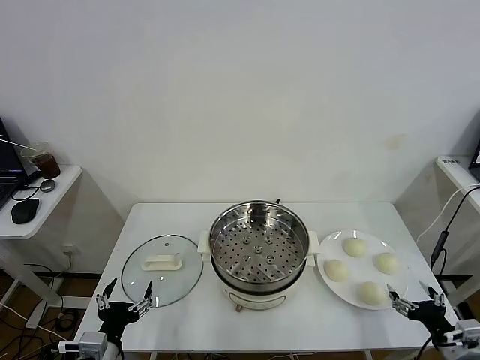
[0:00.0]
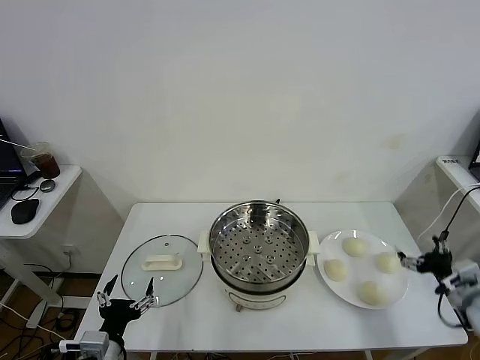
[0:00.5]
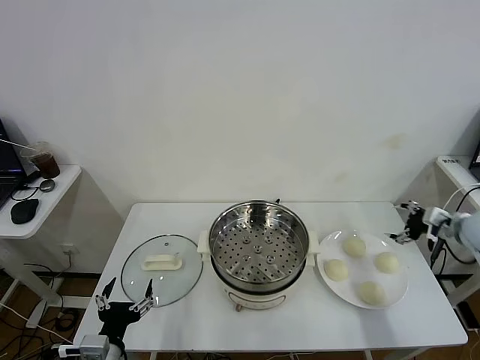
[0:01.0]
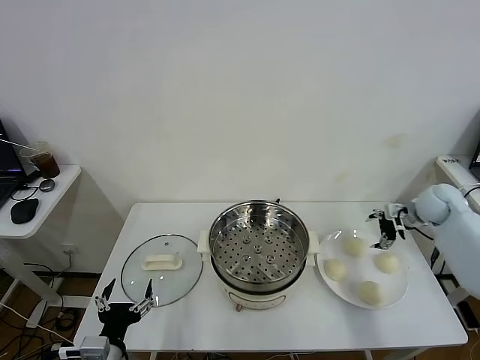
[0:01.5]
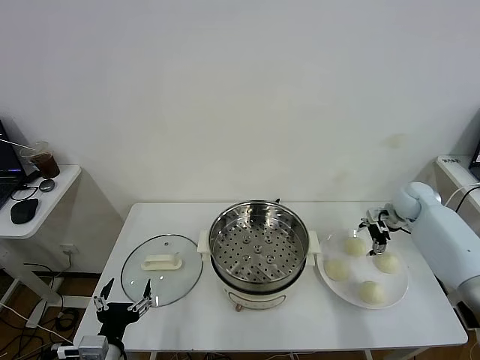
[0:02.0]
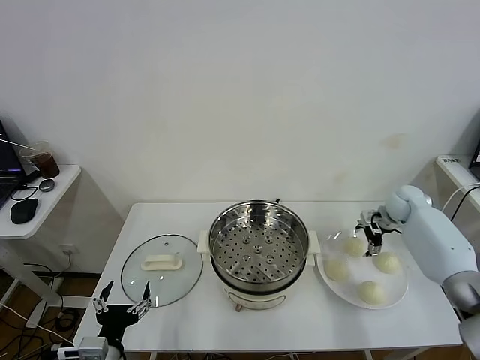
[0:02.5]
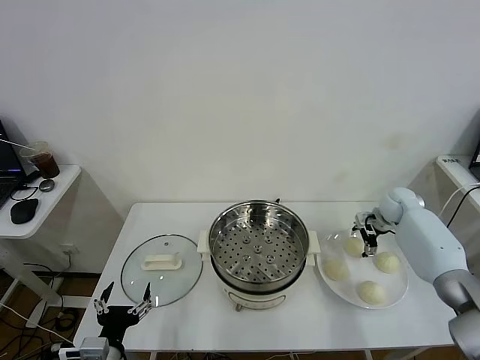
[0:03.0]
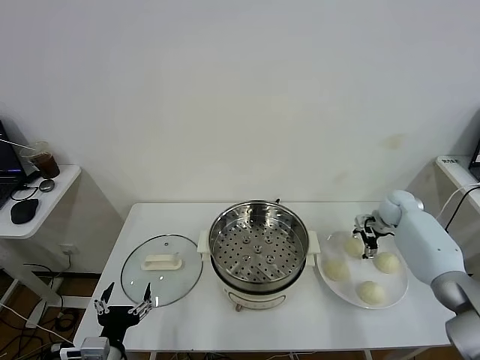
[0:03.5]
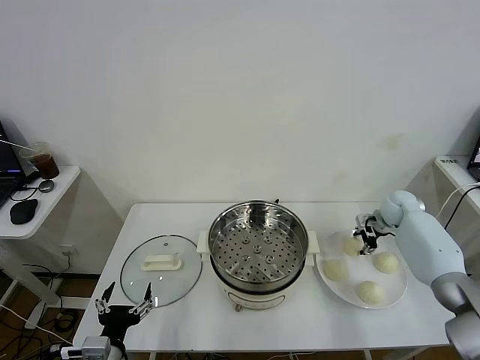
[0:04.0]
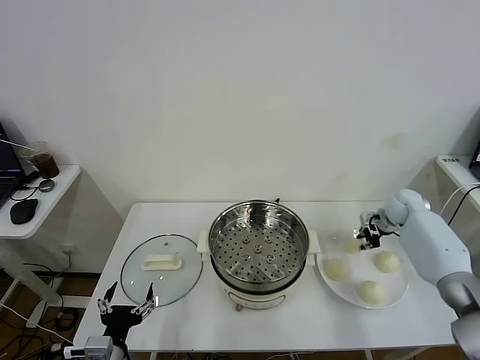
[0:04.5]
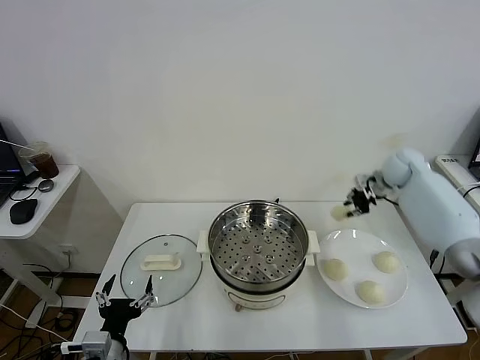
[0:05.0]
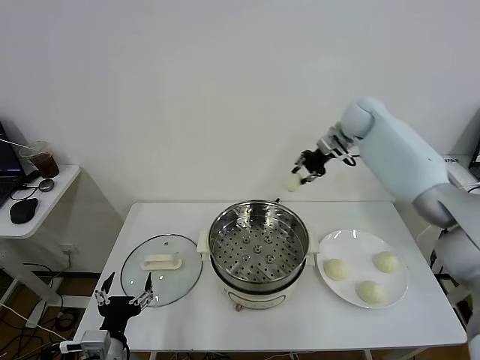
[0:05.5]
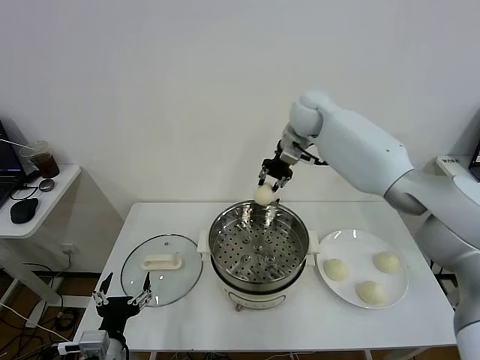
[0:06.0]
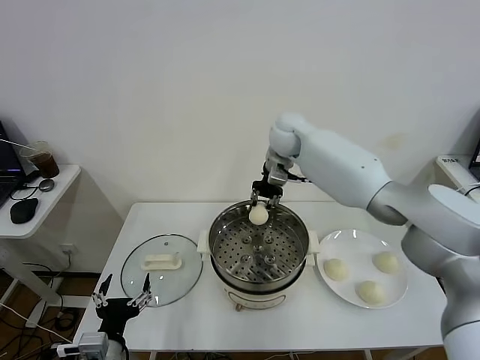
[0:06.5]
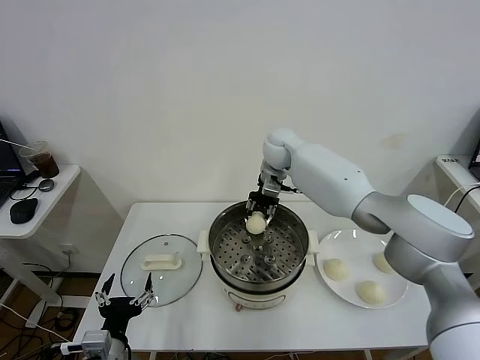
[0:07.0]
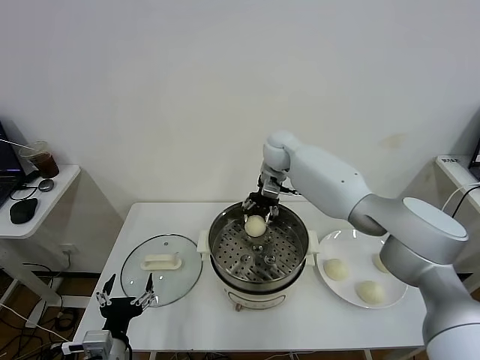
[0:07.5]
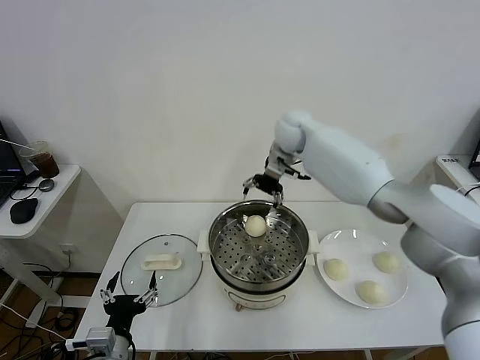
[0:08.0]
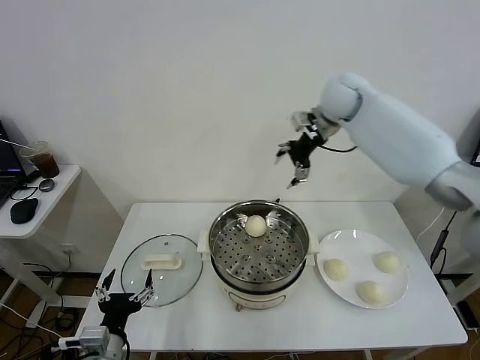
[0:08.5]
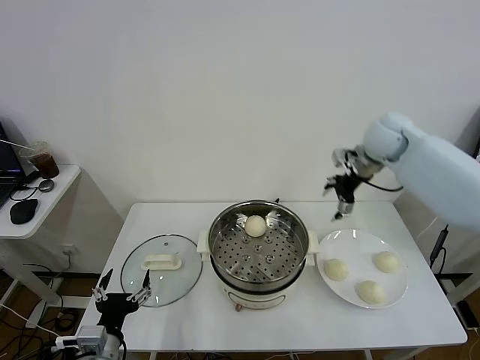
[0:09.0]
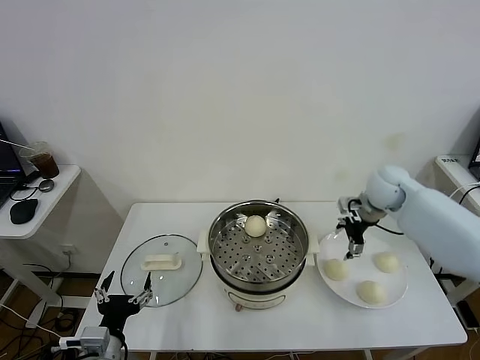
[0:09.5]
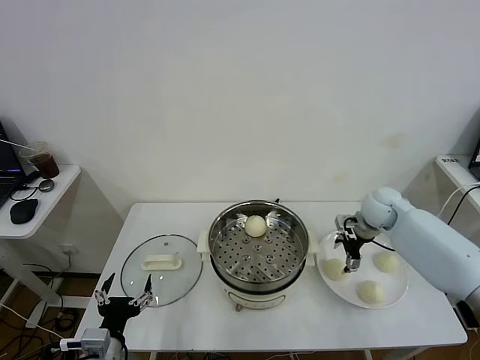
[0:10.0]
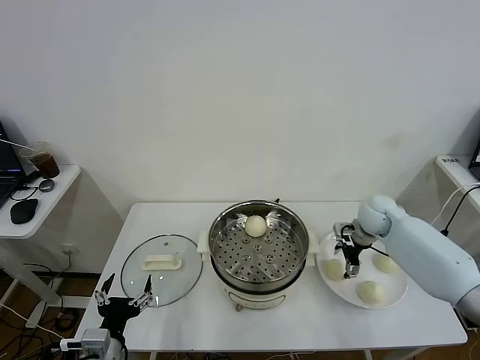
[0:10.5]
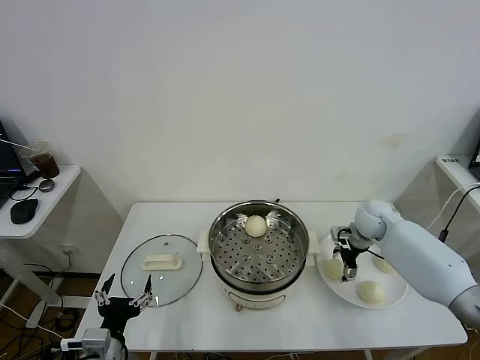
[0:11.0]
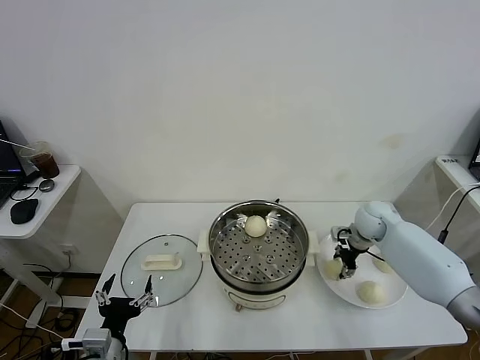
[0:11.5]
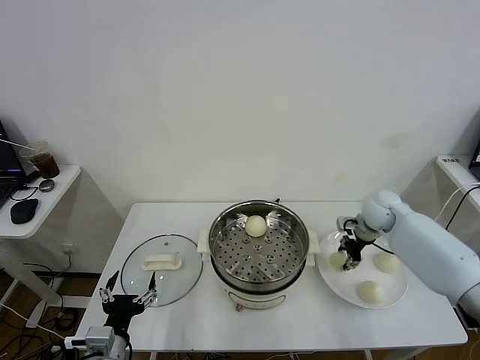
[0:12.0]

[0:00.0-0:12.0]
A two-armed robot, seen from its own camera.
Task of the whole recording: take steamed baozi put them in steamer.
Step, 0:00.0 to 0:04.0: Grasp the baozi in the plate with right gripper.
Step, 0:04.5 to 0:07.5: Place the baozi on the steamer with right gripper.
Step, 0:08.0 to 0:11.5: Grasp the baozi in the plate with right gripper.
0:02.0 to 0:04.0: The right gripper closes.
0:04.0 to 0:06.0: The right gripper shifts about 40 cm to the left and upward, and closes up.
0:06.0 to 0:08.0: The right gripper moves approximately 10 cm downward and comes back, and opens its fingers.
0:08.0 to 0:10.0: The right gripper shifts approximately 30 cm to the right, downward and backward.
0:10.0 to 0:12.0: The right gripper closes.

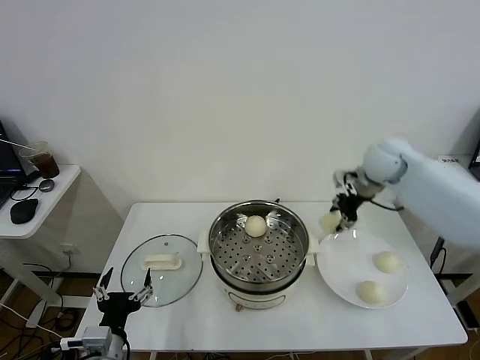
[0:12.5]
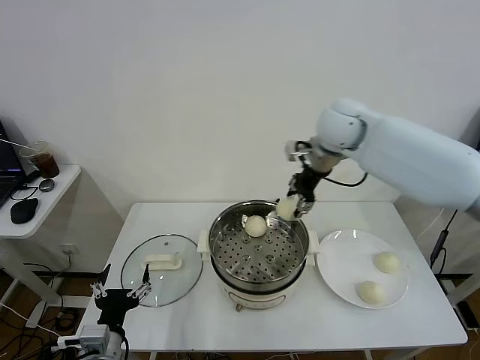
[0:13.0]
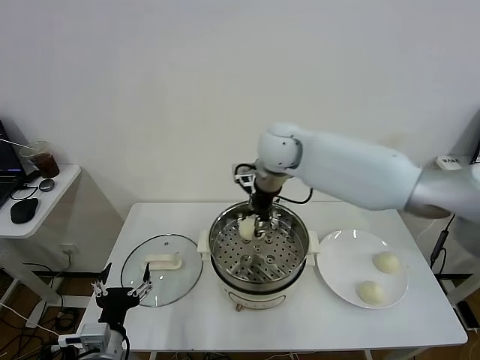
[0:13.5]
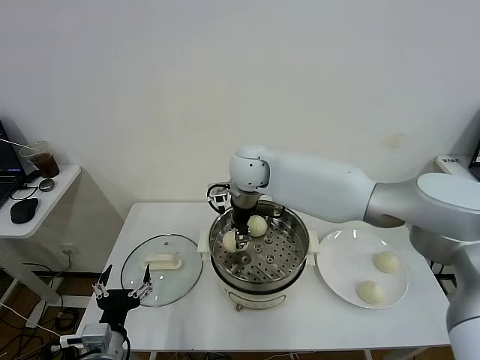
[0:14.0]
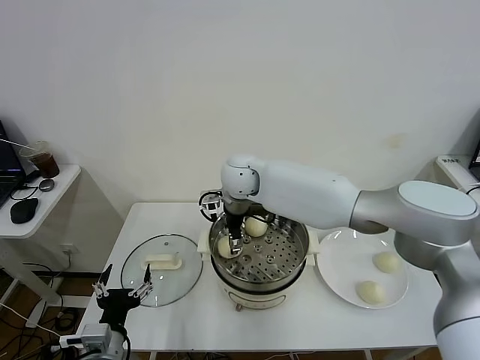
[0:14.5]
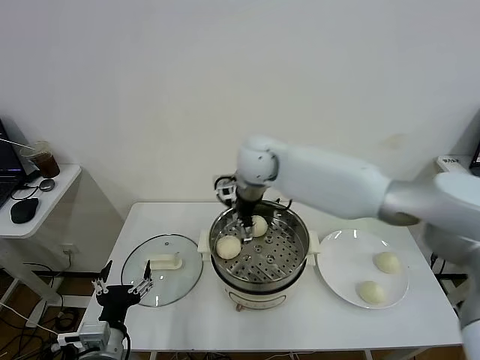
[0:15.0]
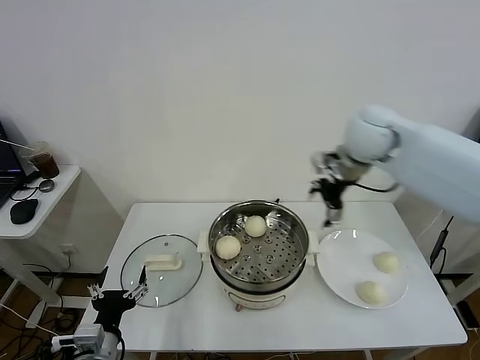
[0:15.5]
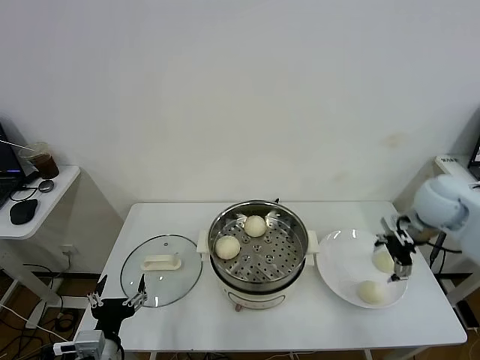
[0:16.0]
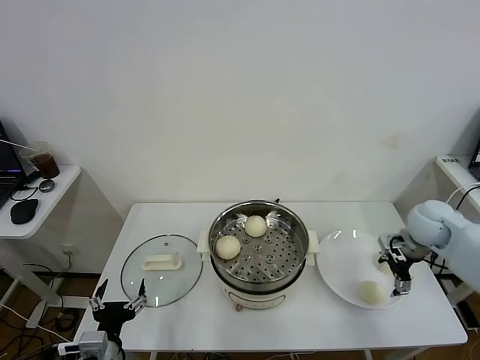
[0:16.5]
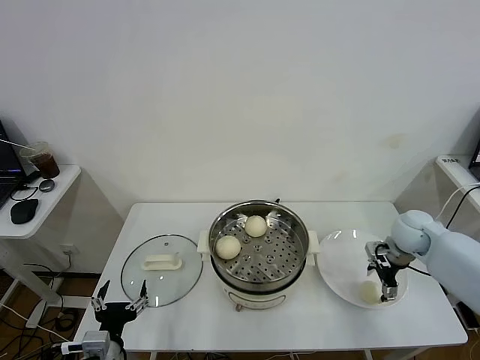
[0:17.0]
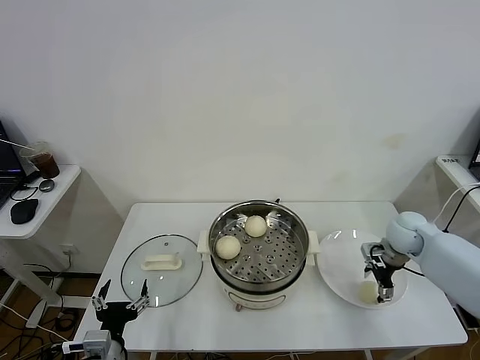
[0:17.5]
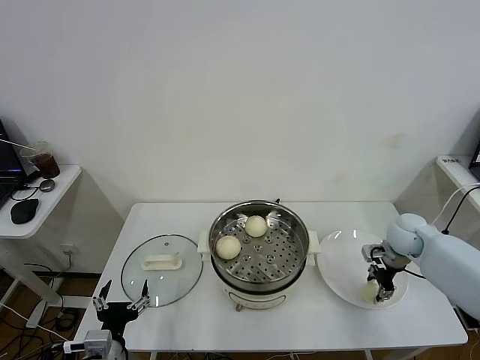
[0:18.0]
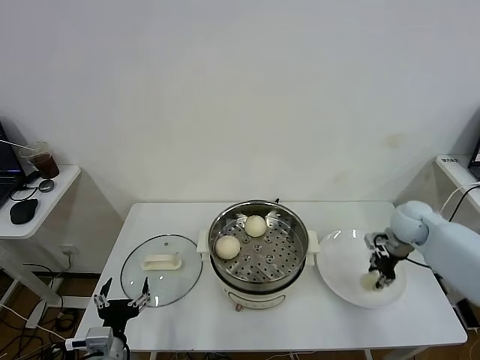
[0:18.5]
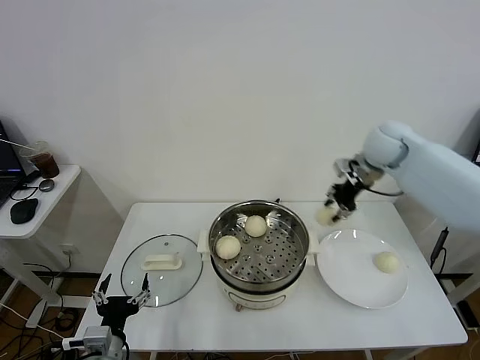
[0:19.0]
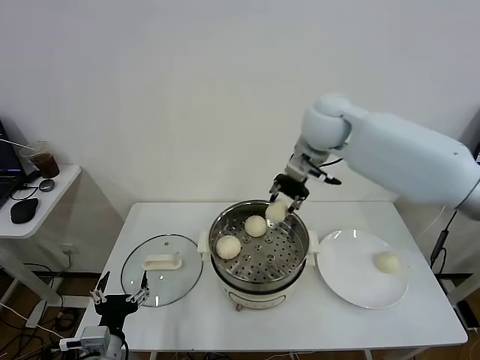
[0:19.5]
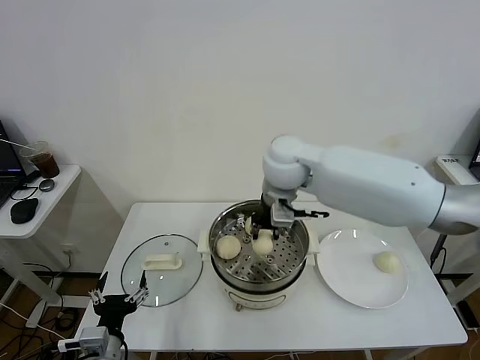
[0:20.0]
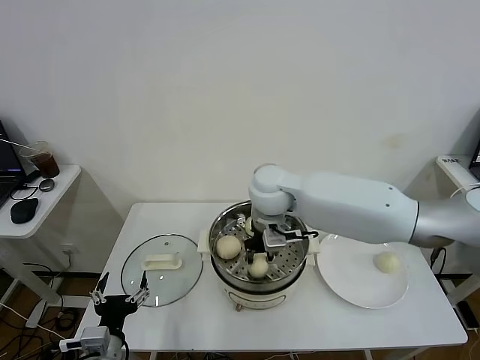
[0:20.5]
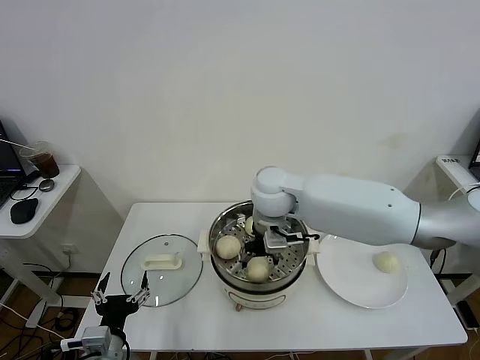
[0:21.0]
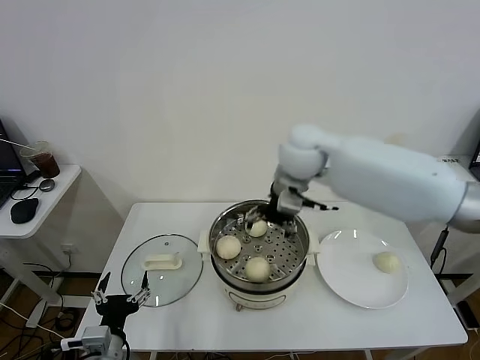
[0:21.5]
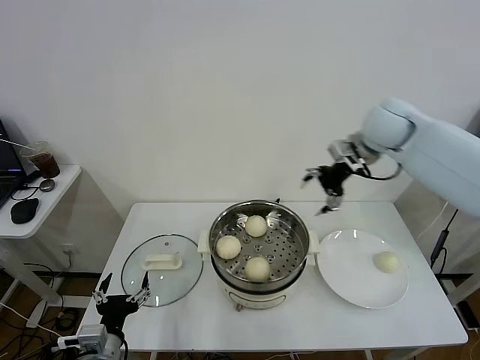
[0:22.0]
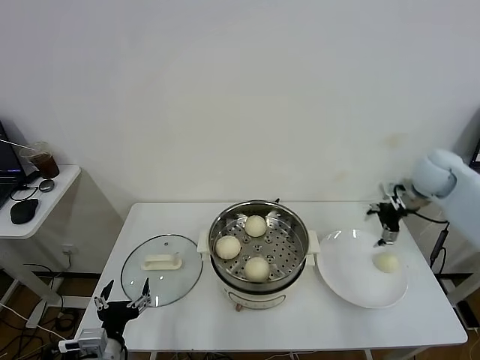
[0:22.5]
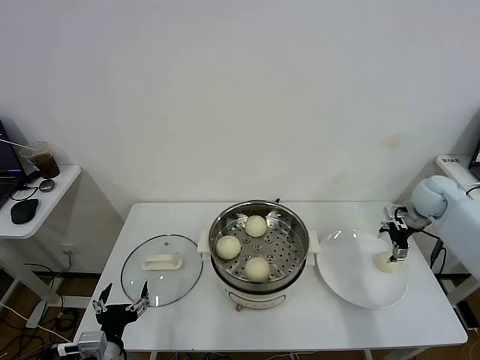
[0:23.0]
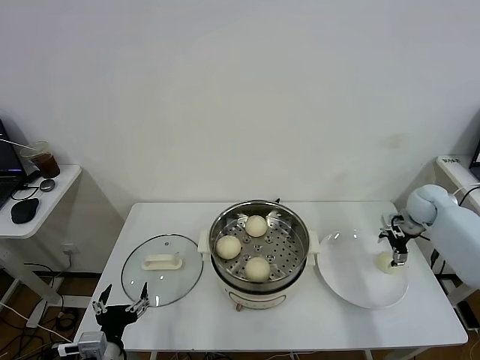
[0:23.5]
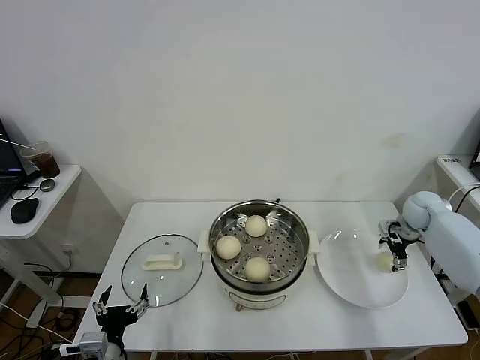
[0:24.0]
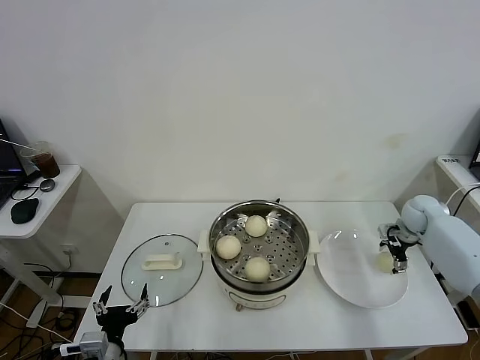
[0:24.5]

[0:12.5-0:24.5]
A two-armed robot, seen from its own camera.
Task of the whole recording: take steamed baozi put them in steamer.
Step, 0:12.5 to 0:15.0: Place the baozi on the steamer with right gripper.
Step, 0:15.5 to 0:18.0: Grasp the baozi in the plate with right gripper.
Step, 0:18.5 to 0:21.0: Place the baozi on the steamer with right gripper.
0:12.5 to 0:14.5: The right gripper travels to the left by about 30 cm, and opens its fingers.
0:14.5 to 0:16.5: The right gripper travels to the right by about 40 cm.
0:16.5 to 0:18.5: The right gripper closes its fingers.
0:18.5 to 0:20.5: The right gripper shifts some 35 cm to the left.
0:20.5 to 0:22.5: The right gripper heads to the right, covering approximately 40 cm, and opens up.
0:22.5 to 0:24.5: The right gripper heads downward, covering about 15 cm.

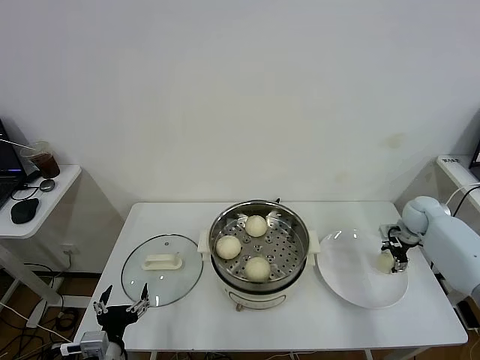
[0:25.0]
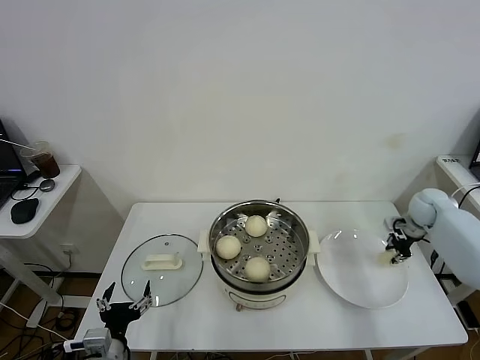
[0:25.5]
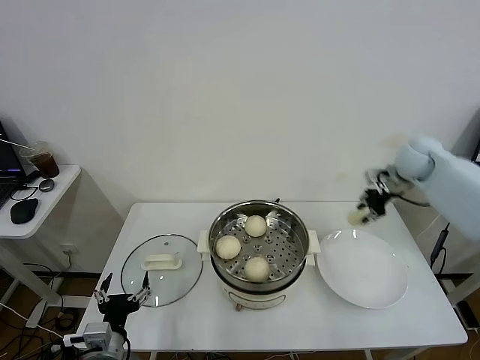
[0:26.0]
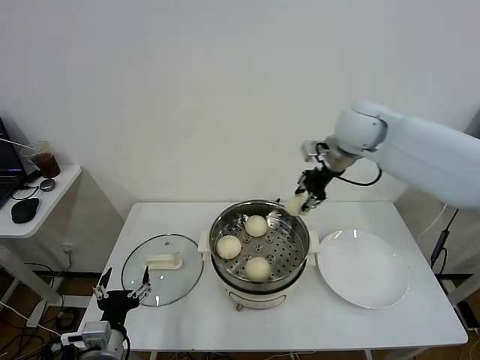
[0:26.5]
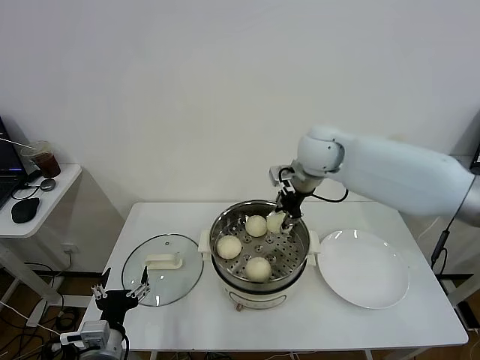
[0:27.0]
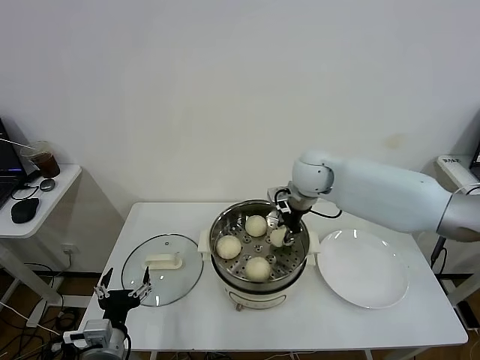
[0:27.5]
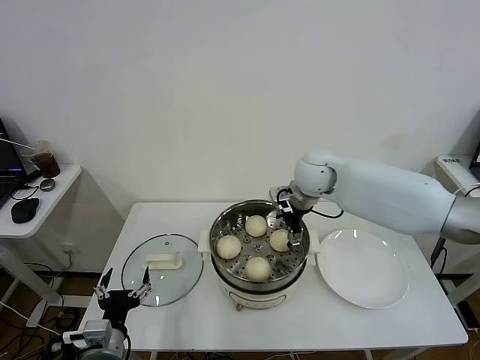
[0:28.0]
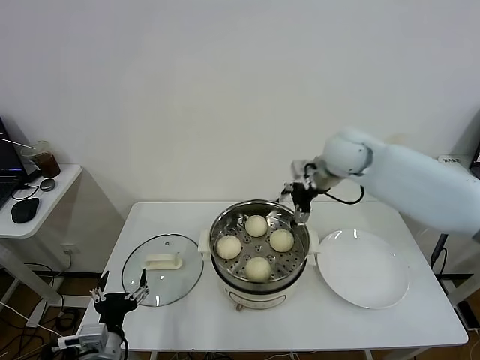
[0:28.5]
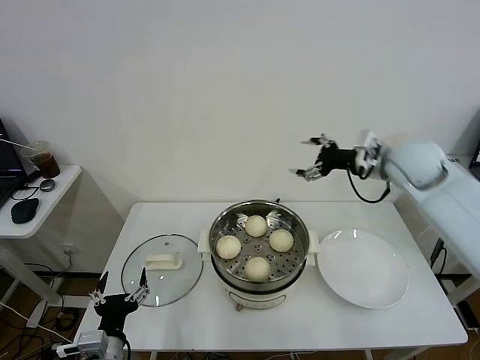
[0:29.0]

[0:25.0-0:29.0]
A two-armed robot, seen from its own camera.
Task of the whole recording: take steamed baozi put them in steamer.
Step, 0:25.5 to 0:28.0: Place the baozi on the steamer with right gripper.
0:25.0 to 0:27.0: The right gripper travels to the left and upward by about 40 cm, and closes up.
0:27.0 to 0:29.0: The right gripper moves to the right, roughly 15 cm, and opens up.
